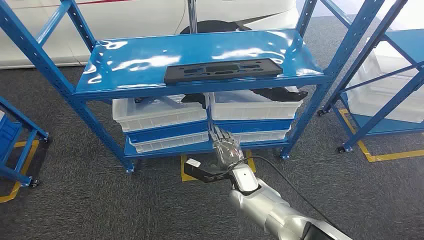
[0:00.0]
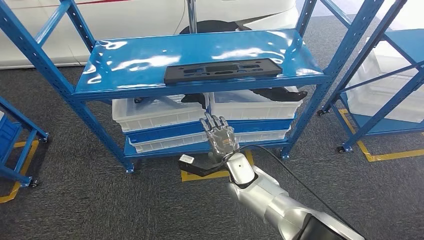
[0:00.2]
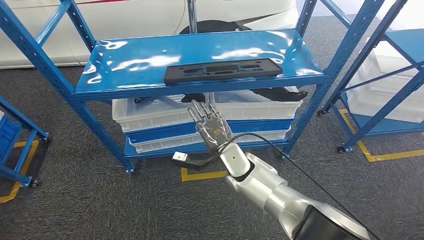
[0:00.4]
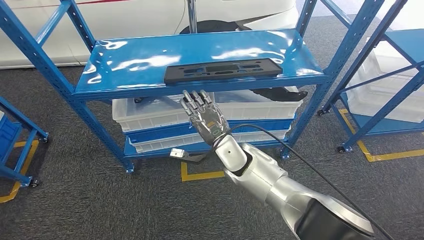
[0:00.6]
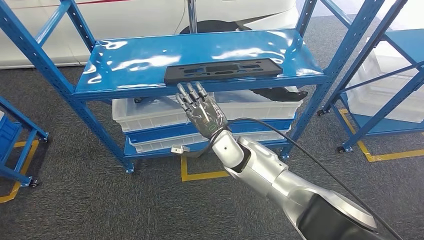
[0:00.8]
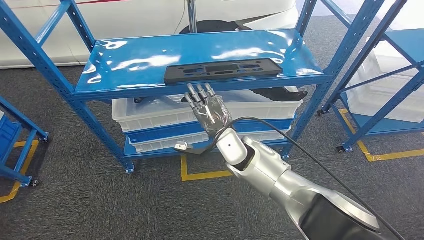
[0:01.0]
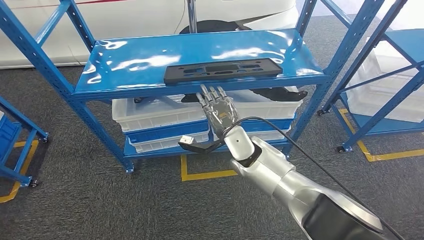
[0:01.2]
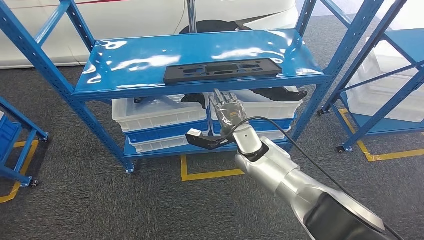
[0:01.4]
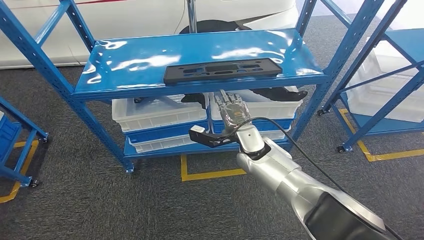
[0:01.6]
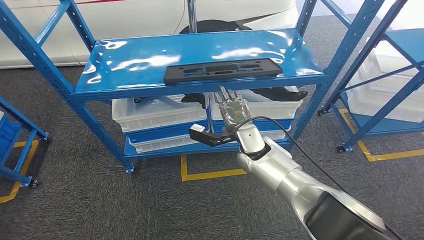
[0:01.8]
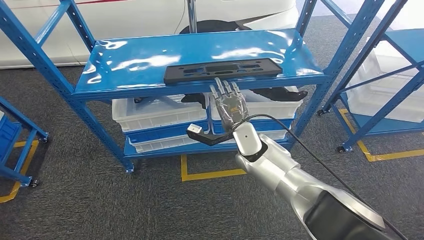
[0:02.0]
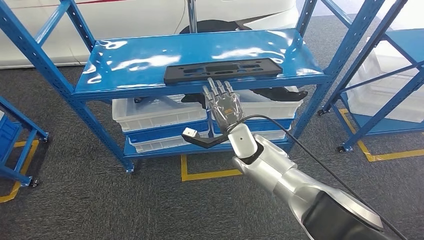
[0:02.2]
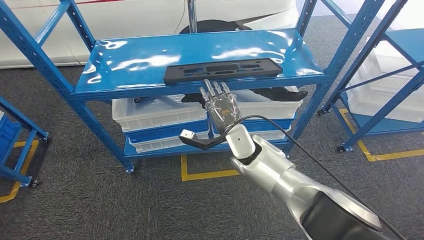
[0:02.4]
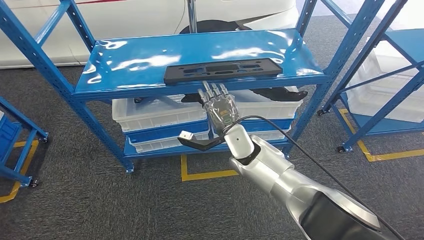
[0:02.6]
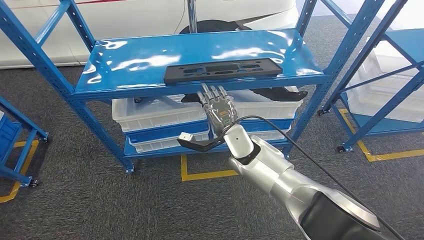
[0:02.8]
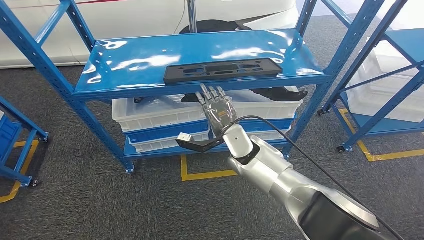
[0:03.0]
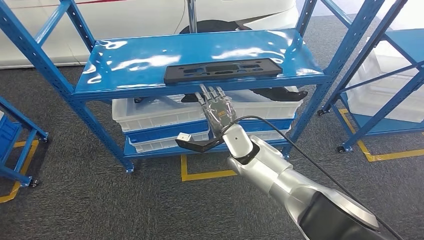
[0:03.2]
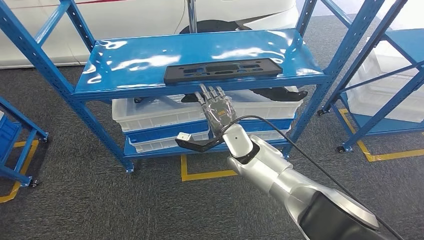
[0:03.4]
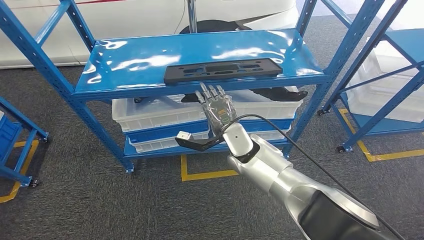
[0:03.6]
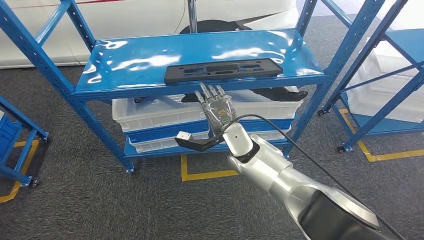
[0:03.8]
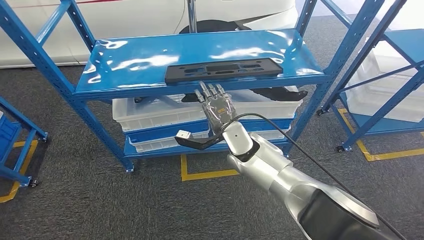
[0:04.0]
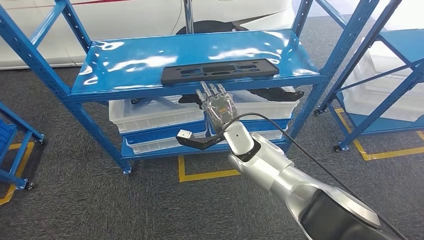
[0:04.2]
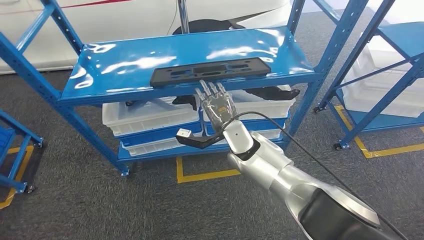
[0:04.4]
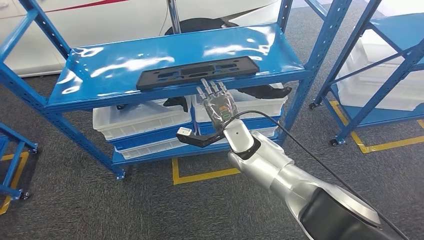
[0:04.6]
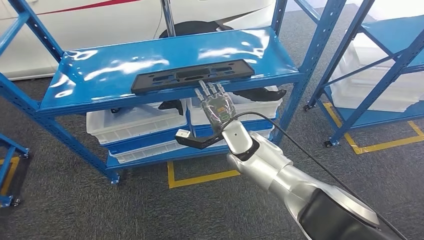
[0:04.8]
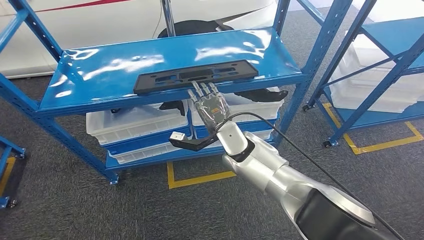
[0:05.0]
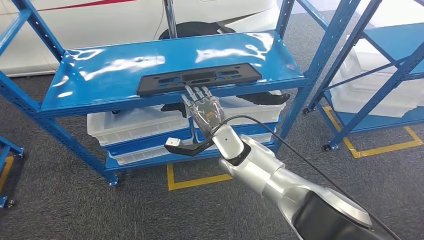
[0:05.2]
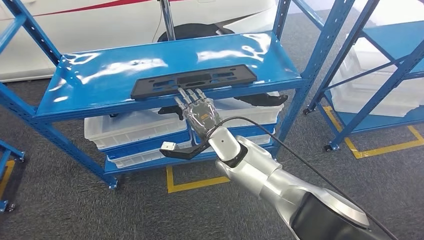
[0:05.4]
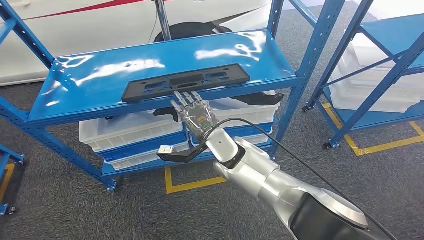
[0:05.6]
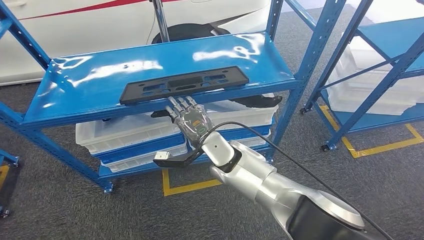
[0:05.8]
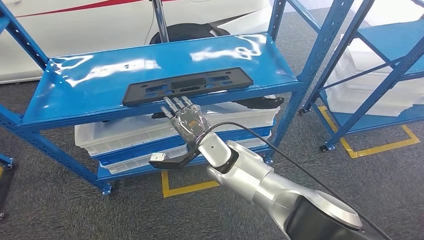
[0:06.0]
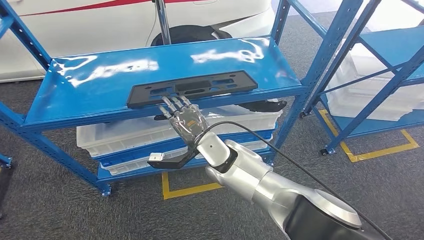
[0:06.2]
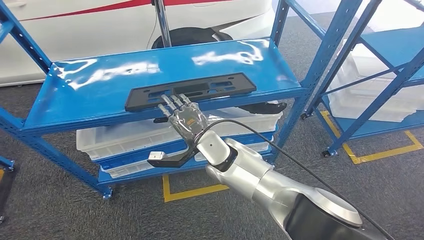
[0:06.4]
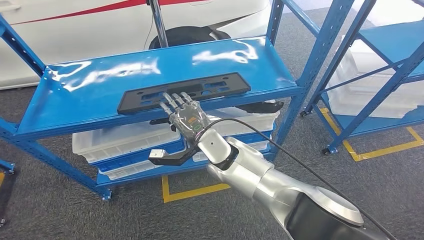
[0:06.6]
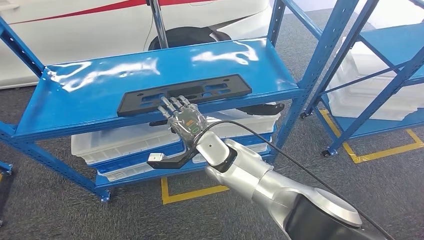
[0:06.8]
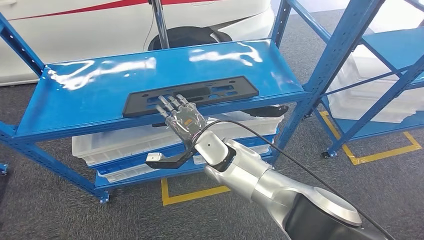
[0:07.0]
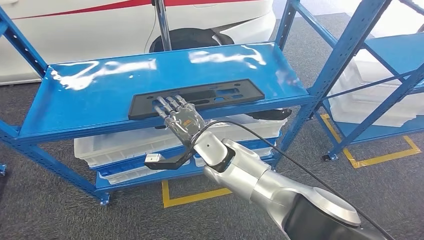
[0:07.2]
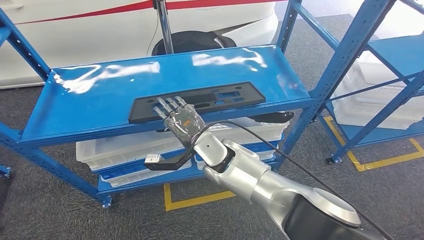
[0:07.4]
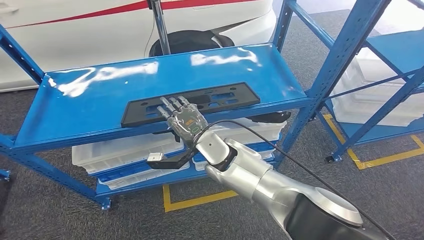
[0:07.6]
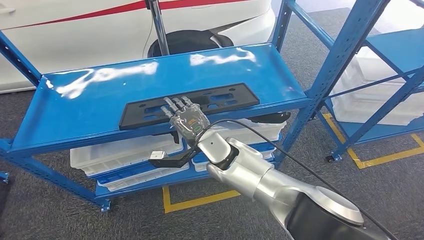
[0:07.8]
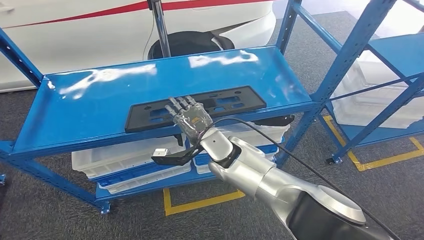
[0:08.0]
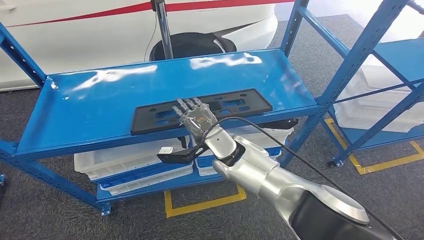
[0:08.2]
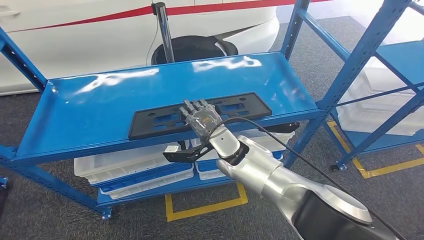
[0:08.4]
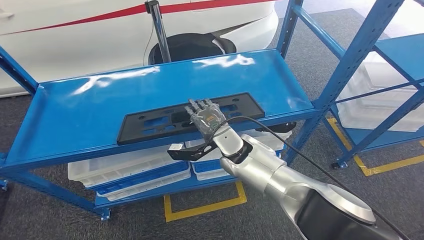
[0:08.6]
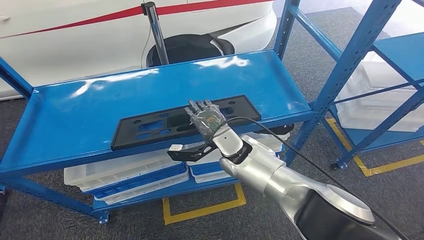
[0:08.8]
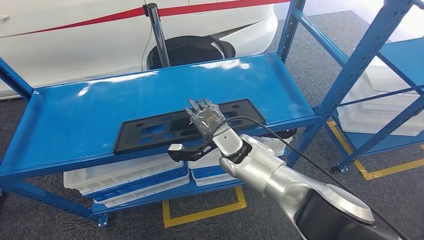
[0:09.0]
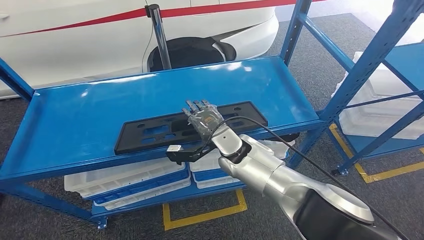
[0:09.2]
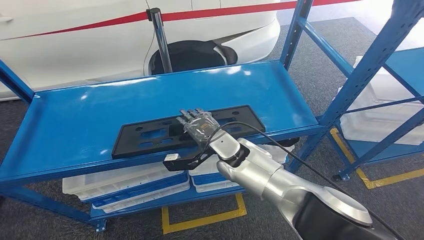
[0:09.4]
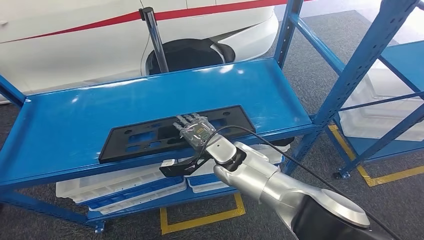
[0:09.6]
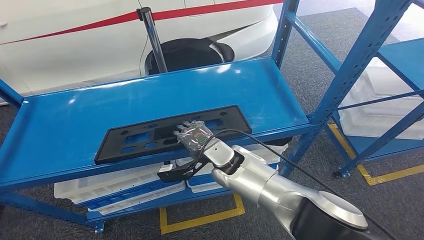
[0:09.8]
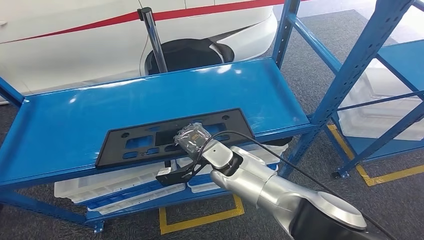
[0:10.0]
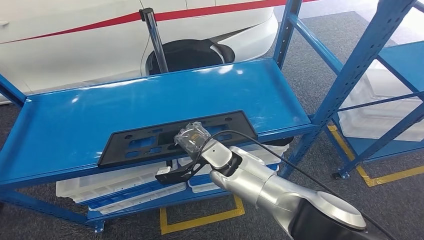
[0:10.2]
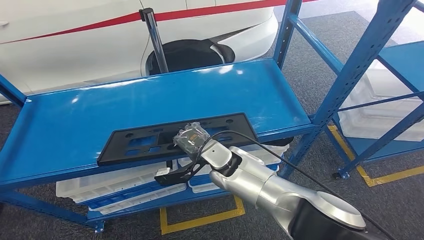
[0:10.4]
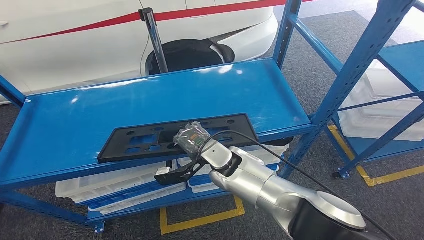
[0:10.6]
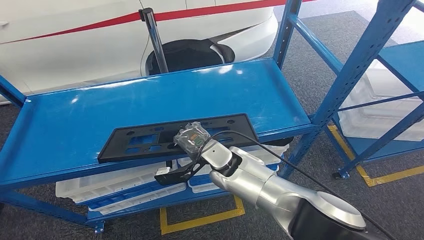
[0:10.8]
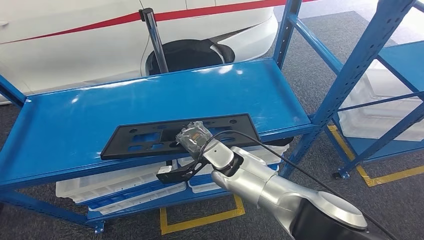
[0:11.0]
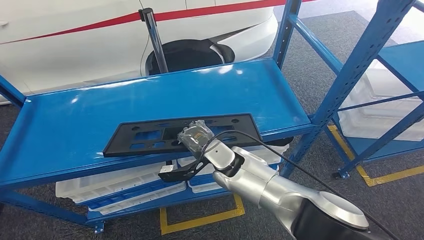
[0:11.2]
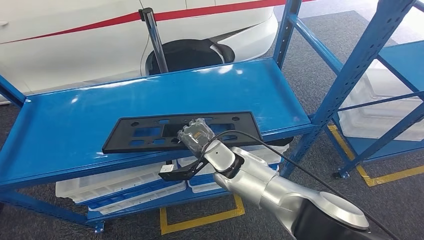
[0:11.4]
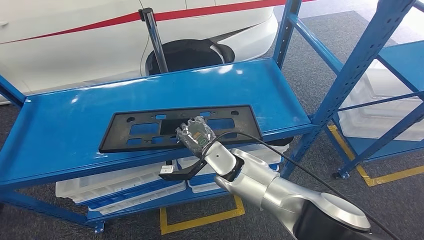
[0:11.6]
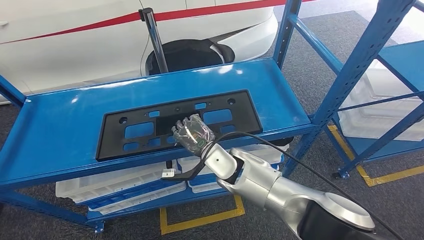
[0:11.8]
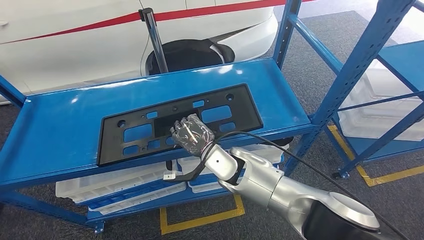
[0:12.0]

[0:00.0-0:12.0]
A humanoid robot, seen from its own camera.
Step, 0:00.0 to 0:11.8: Pick up the large material from the shelf.
0:01.6 to 0:03.0: The hands move only a little.

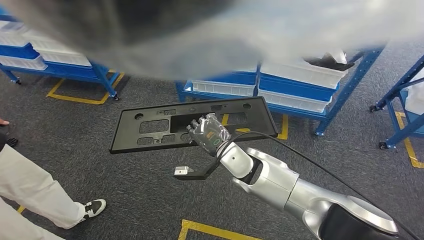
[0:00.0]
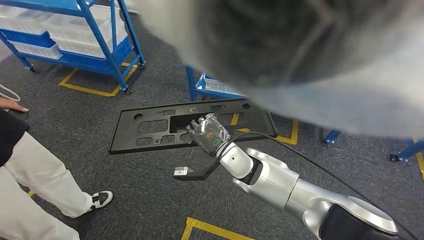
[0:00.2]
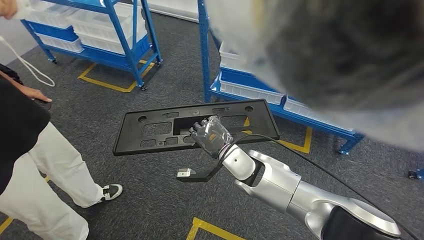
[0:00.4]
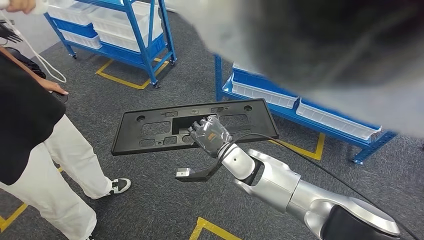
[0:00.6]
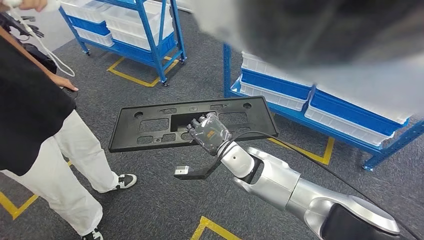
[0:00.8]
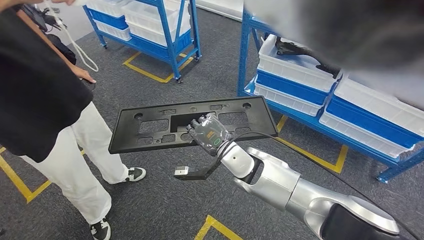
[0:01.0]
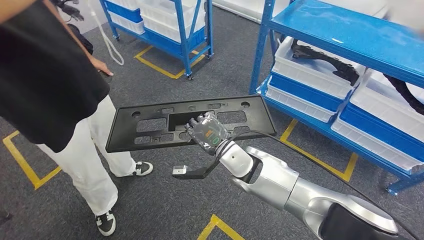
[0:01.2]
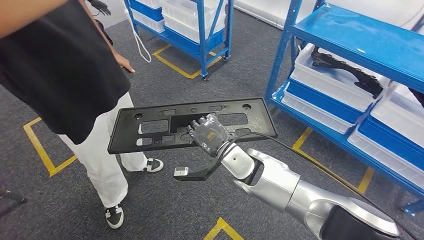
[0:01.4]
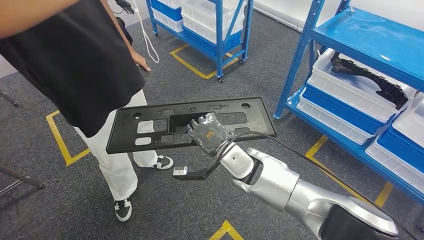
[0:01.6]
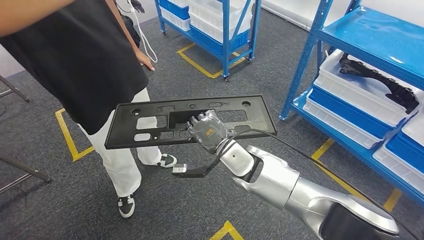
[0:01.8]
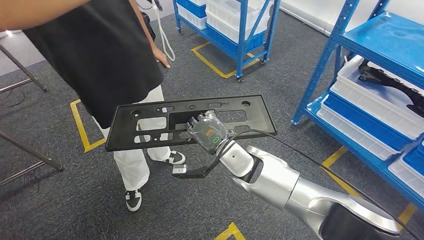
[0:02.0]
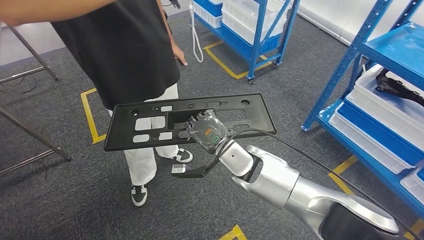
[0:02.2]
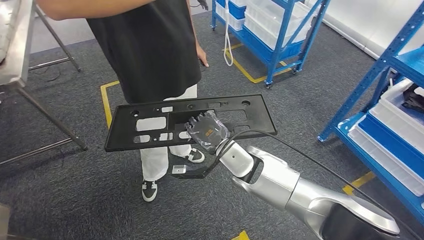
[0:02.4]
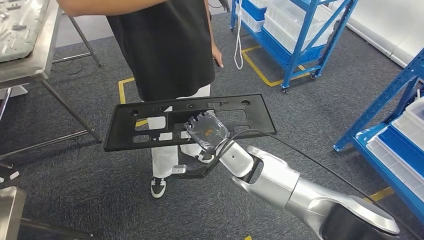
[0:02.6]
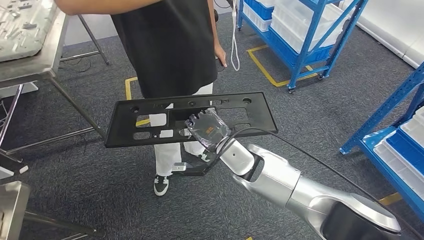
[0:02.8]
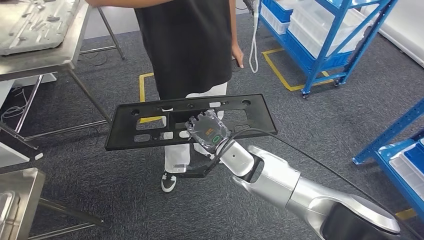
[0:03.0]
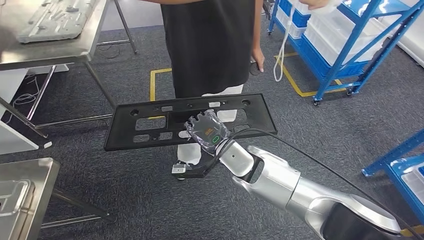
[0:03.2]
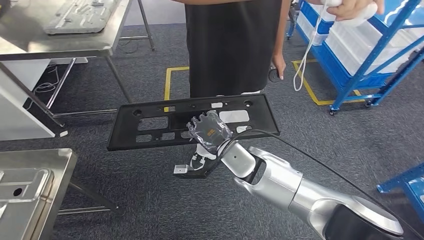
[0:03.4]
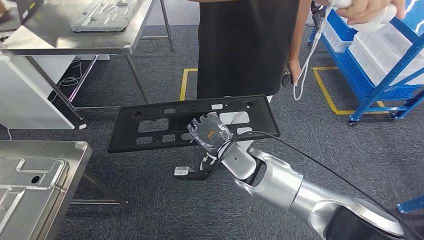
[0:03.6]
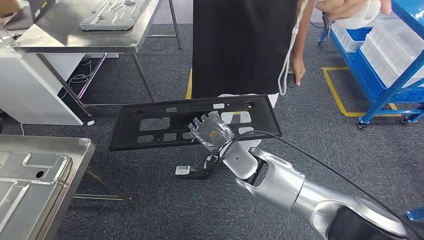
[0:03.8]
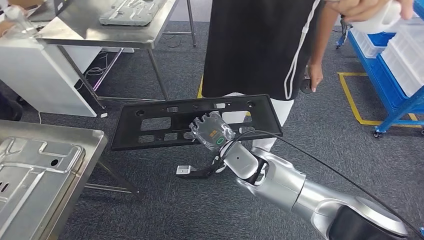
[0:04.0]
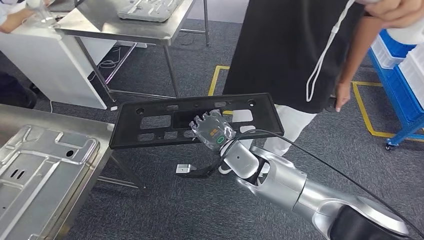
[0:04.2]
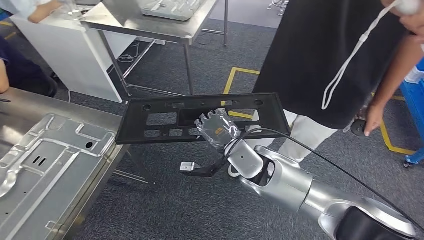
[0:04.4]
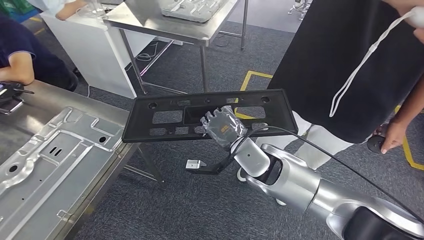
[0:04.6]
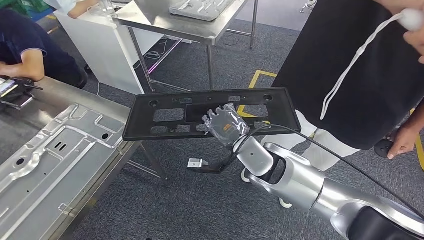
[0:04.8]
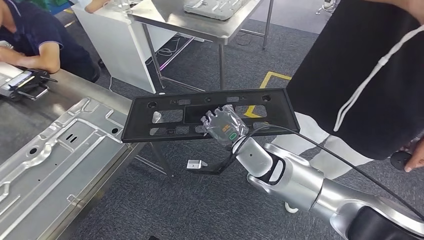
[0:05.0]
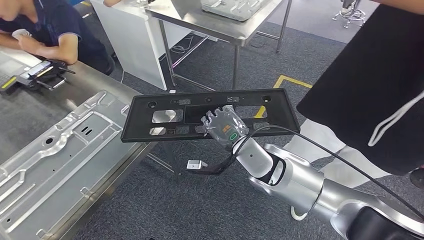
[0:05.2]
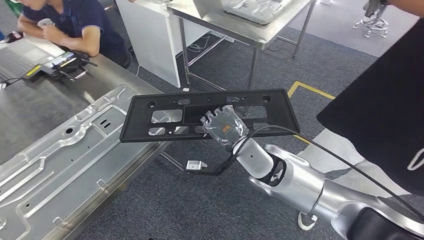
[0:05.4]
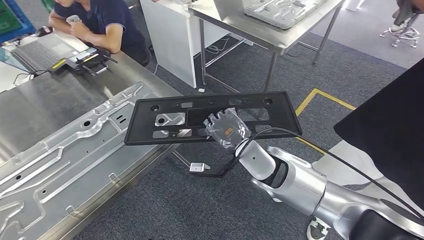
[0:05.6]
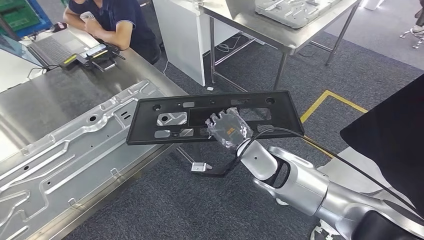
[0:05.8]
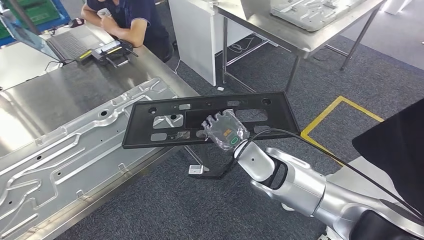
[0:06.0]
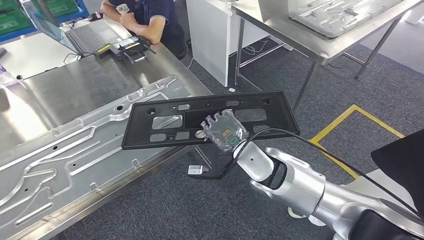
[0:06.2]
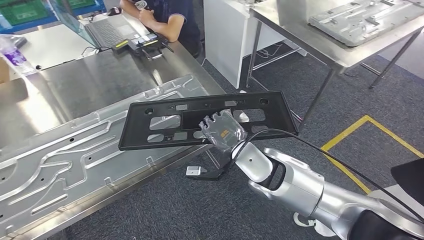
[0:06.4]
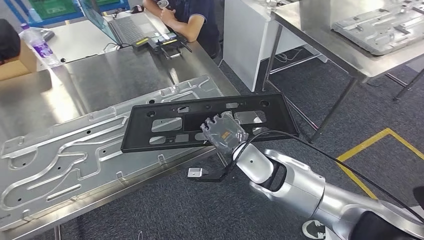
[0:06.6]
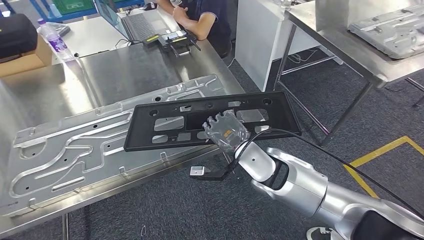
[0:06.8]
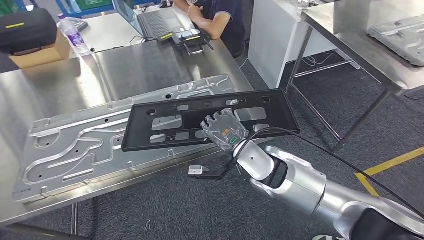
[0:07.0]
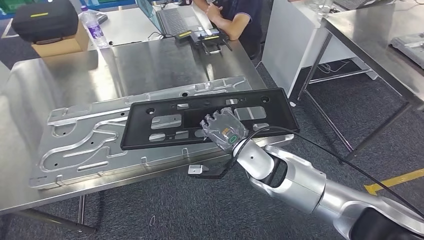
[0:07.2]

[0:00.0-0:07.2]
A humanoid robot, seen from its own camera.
Step, 0:00.0 to 0:05.4: Move the large material to the workbench.
